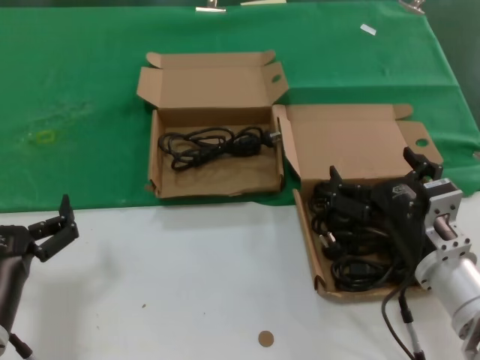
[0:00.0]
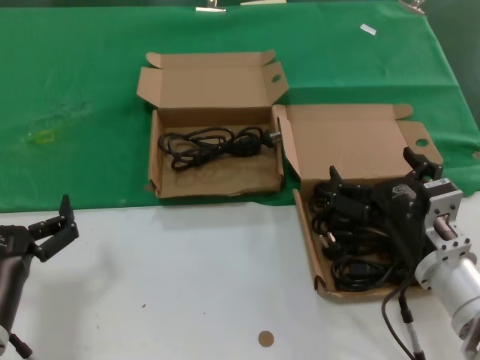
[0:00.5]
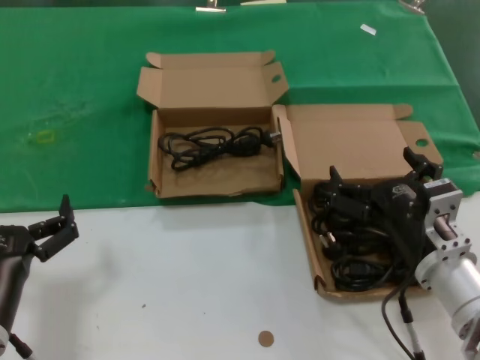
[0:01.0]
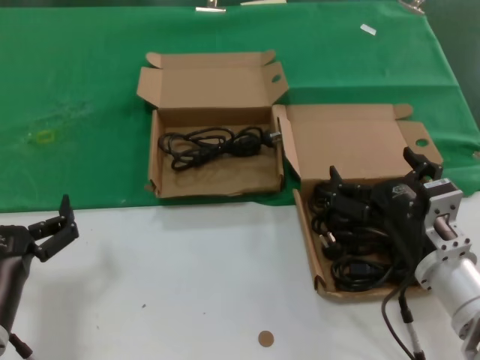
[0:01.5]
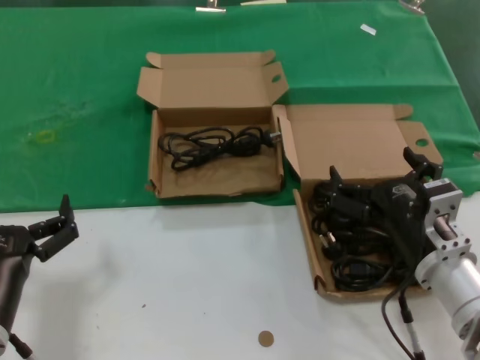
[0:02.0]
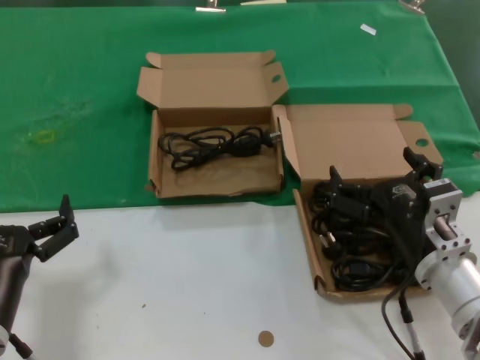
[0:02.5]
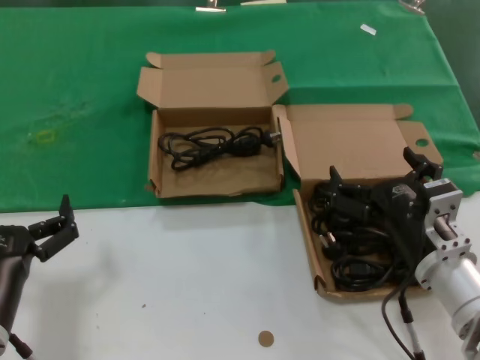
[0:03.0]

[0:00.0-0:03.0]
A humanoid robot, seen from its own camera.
Task of the whole recording: take the parts from the box containing them and put them into an empty box.
0:00.0 to 0:03.0: Both hands stay about where they are.

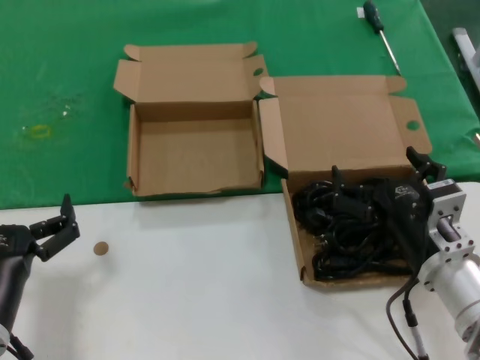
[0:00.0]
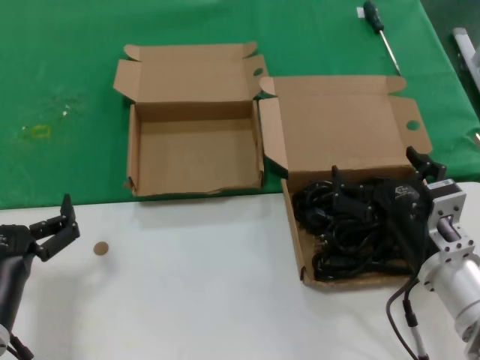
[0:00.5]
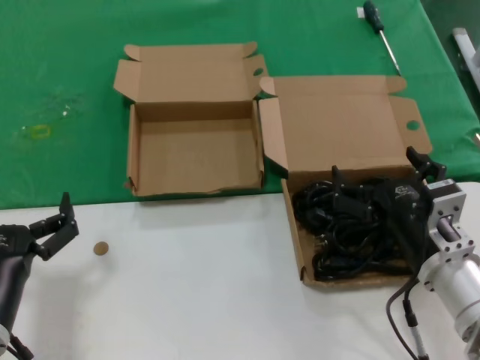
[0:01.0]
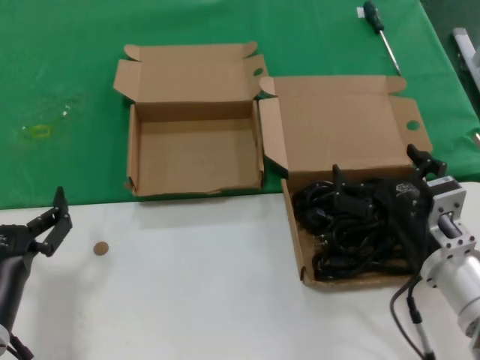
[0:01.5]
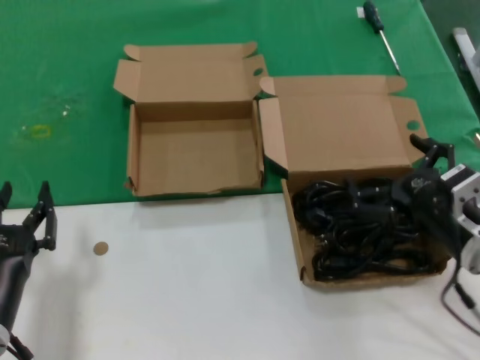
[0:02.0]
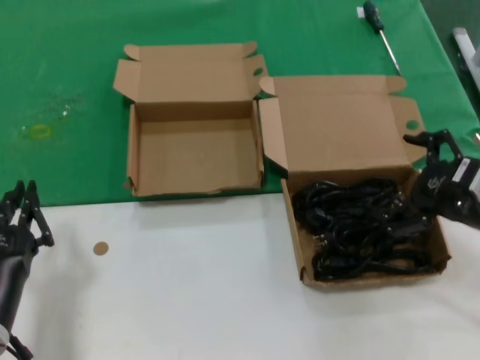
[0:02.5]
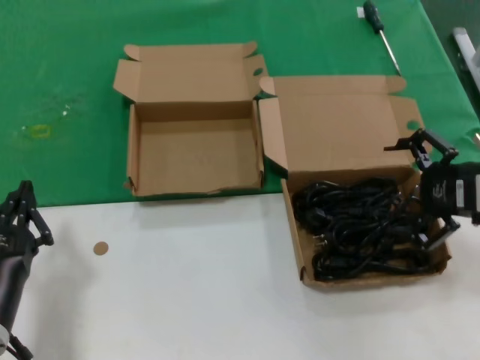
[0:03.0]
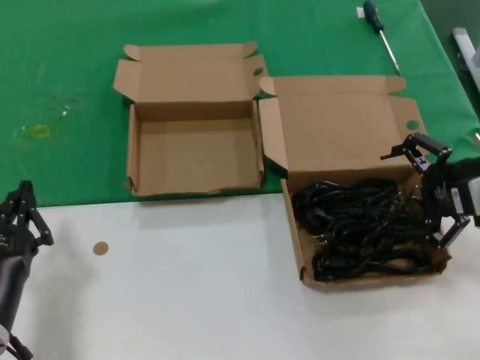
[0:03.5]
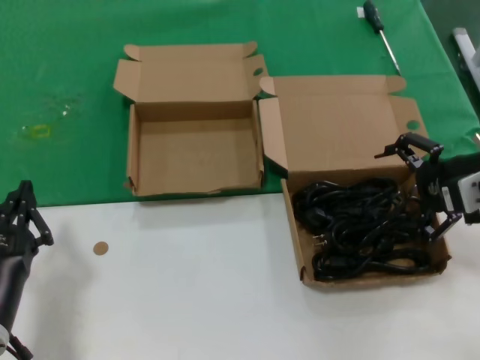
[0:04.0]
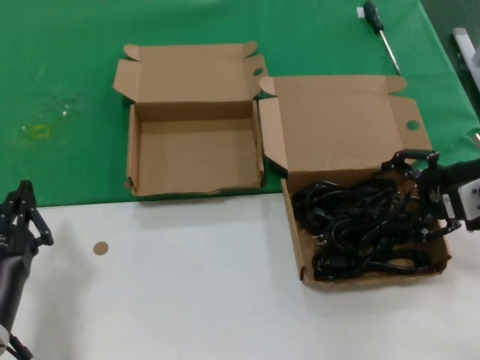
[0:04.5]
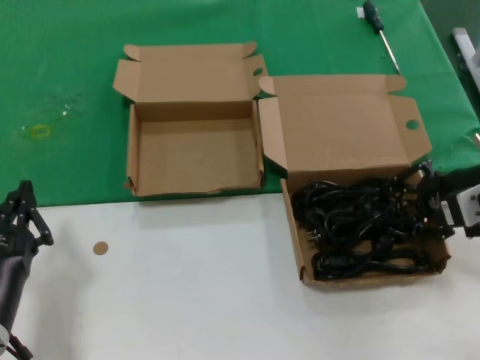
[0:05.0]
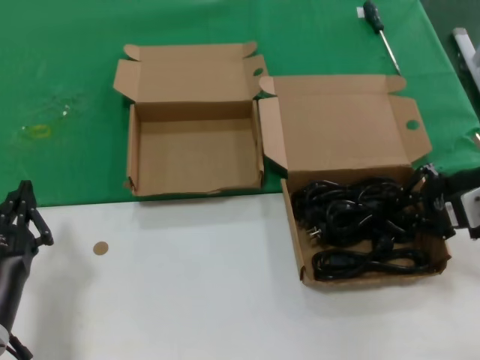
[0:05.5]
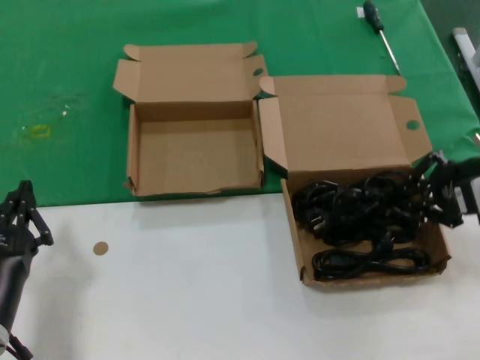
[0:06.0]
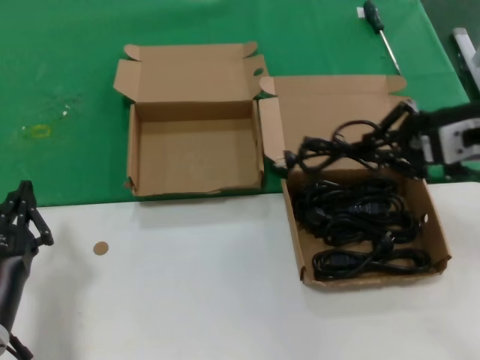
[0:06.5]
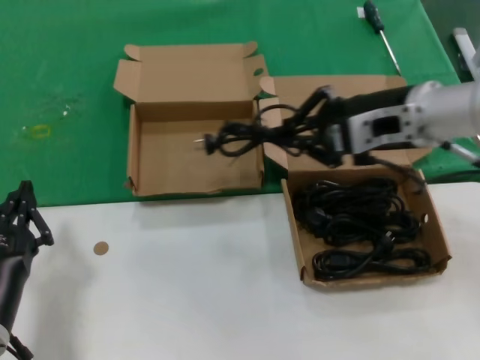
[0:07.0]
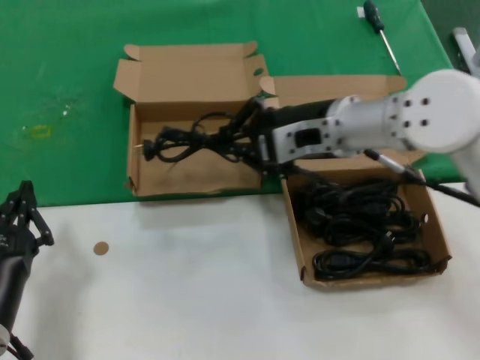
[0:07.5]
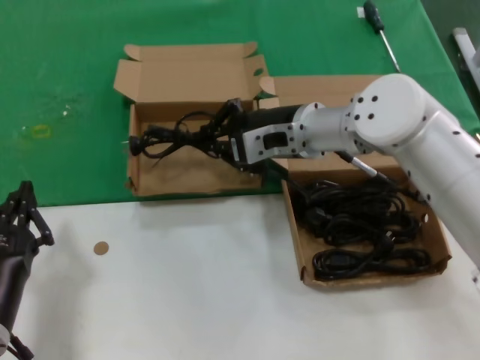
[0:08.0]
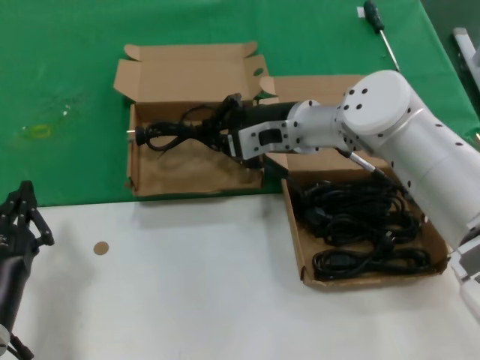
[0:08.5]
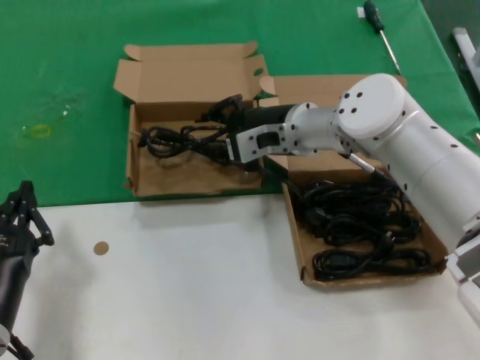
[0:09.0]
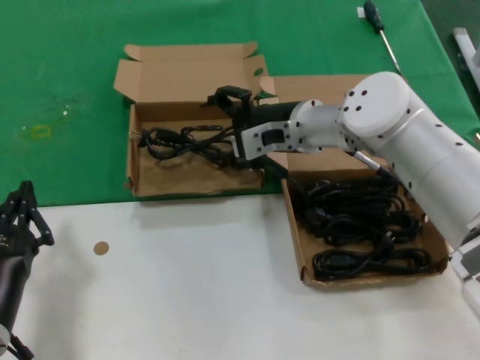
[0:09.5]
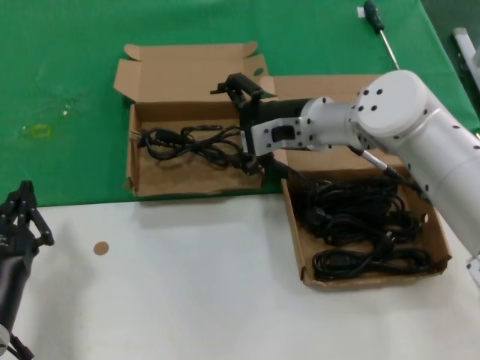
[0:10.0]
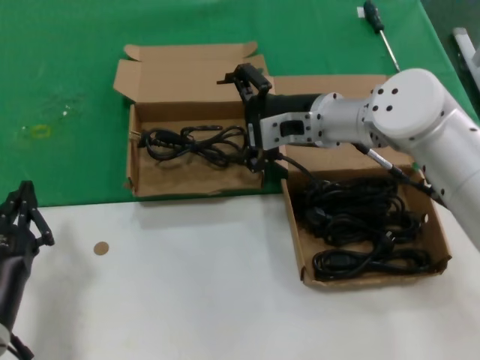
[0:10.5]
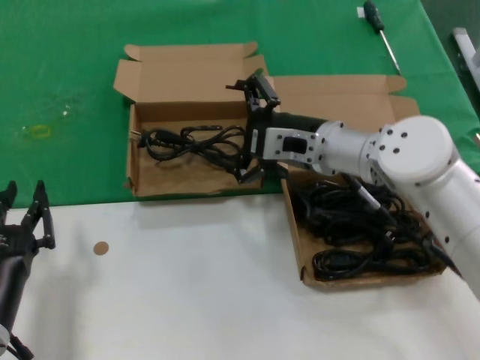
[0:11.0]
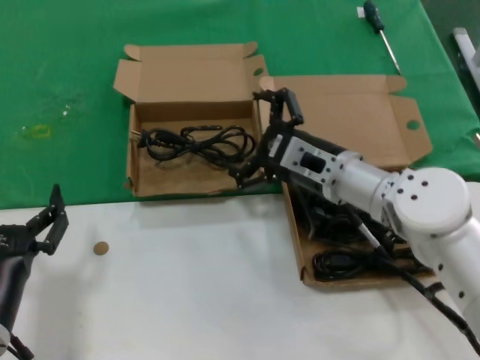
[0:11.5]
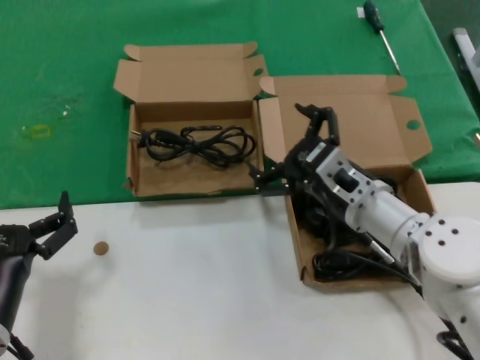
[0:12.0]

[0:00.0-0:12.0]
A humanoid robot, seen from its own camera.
Task of the whole recording: take the parts from the box containing them and put them into an empty box.
Step, 0:00.0 to 0:05.5: Grasp the data cable.
Step, 0:06.0 to 0:09.5: Place the data cable in the another box.
0:00.0 to 0:02.0: The right hand moves to the right, about 5 cm.
0:02.0 to 0:04.0: The right hand moves upward, forward and to the right, about 15 cm.
0:04.0 to 0:06.0: The hands move only a little.
0:06.0 to 0:08.0: The right hand goes roughly 25 cm to the left and forward.
0:08.0 to 0:10.0: The hands stay close to where they were, moving slightly.
0:10.0 to 0:12.0: The right hand moves backward and downward, approximately 15 cm.

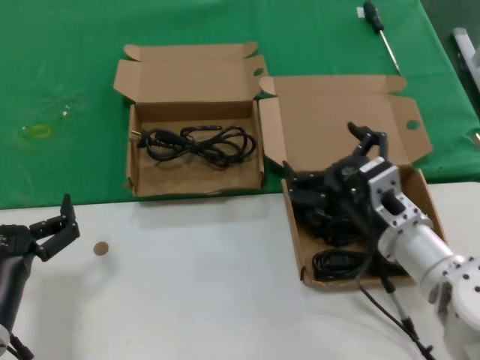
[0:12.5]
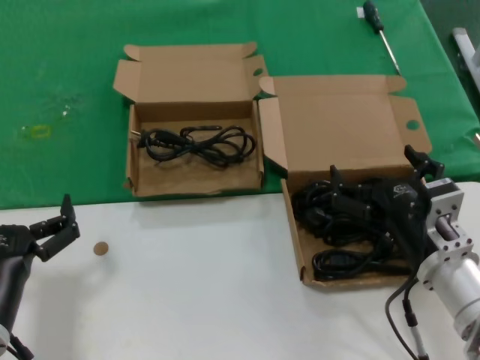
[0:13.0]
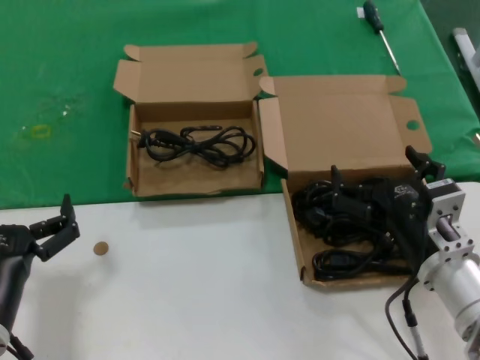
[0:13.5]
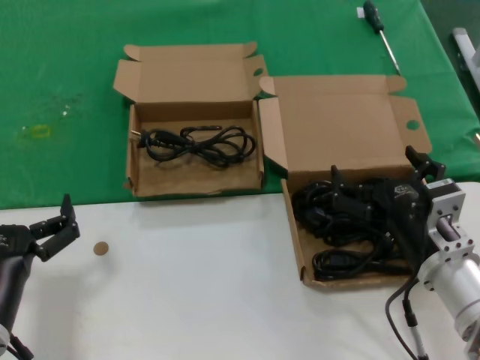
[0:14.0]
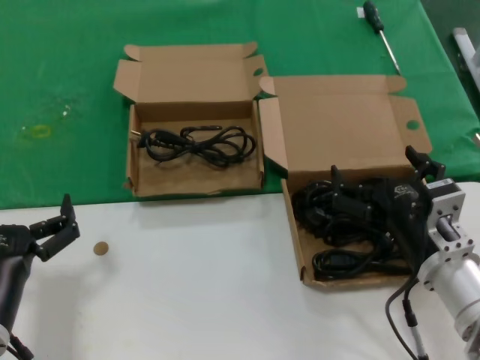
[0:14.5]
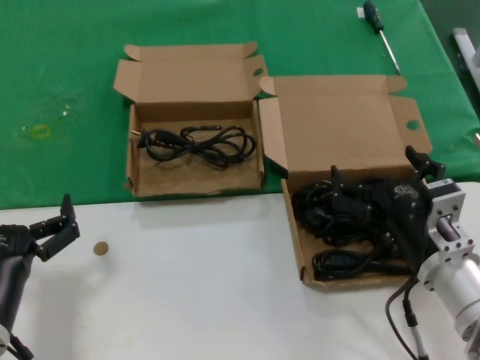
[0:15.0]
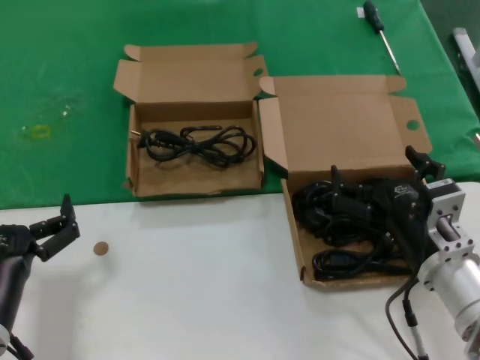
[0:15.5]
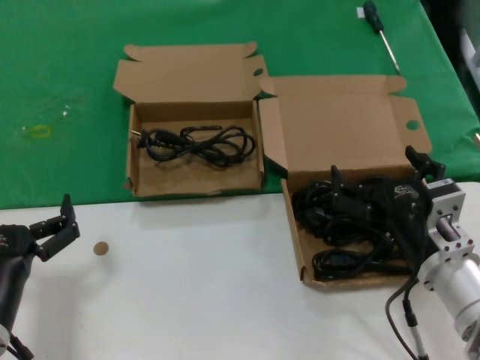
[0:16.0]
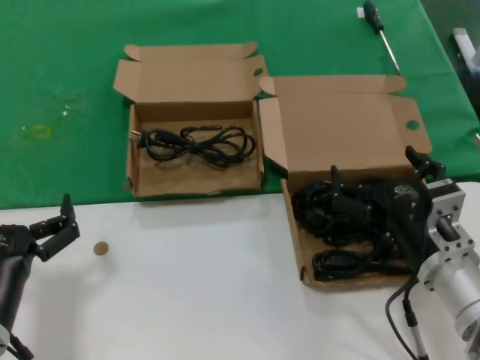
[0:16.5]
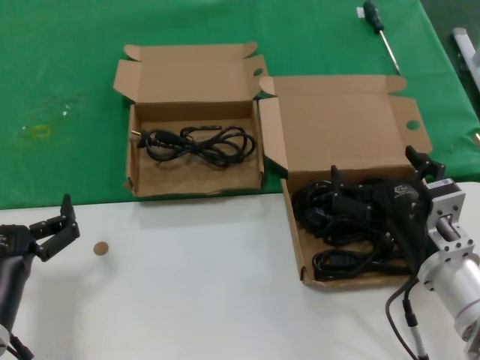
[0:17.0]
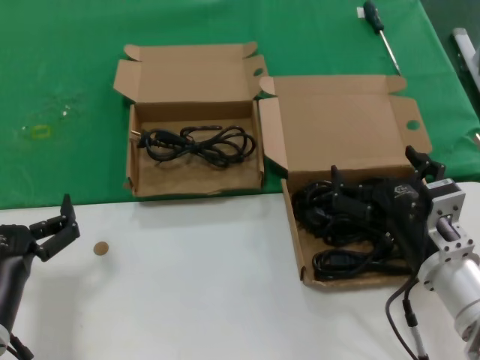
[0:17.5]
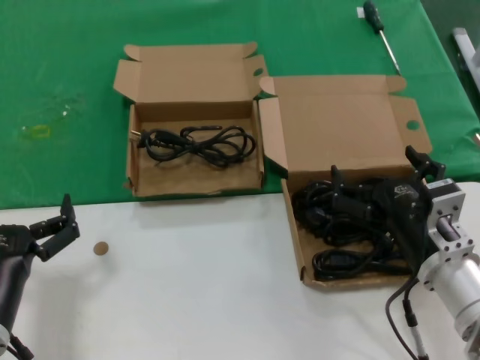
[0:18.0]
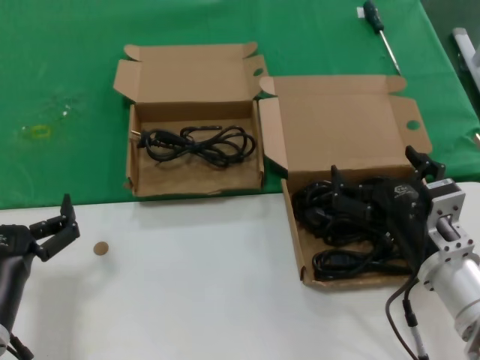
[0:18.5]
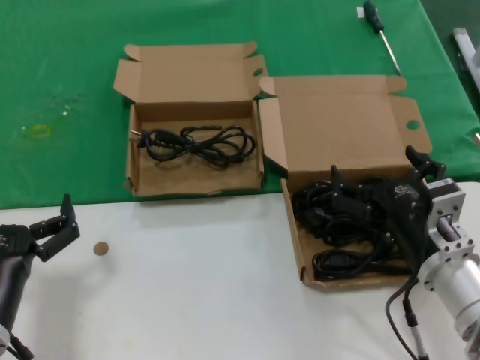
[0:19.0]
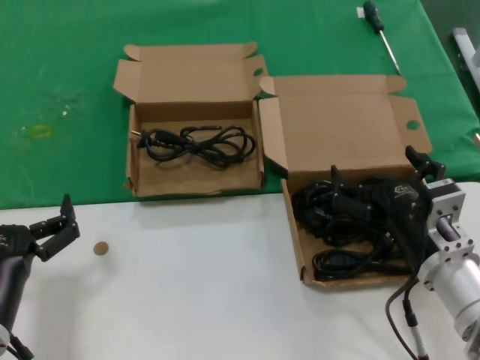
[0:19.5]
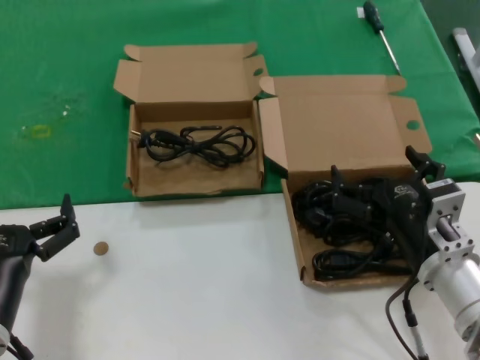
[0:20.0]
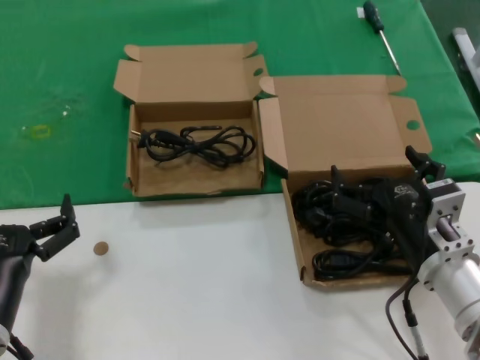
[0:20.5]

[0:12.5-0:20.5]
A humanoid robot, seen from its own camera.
Task of the whole recording: take the parts from the box containing them and put them into an empty box.
0:12.5 to 0:14.5: The right hand moves backward, approximately 5 cm.
0:14.5 to 0:20.5: Neither hand changes place.
